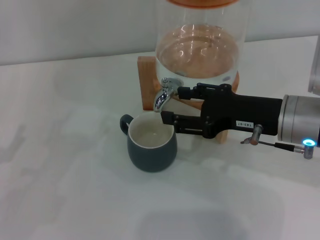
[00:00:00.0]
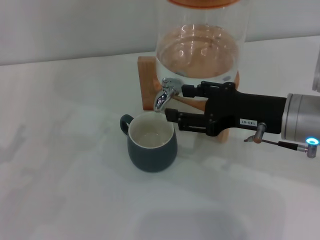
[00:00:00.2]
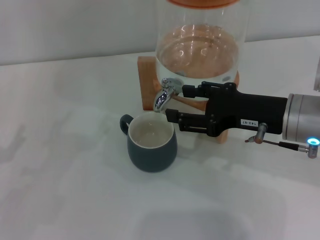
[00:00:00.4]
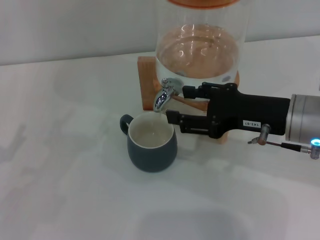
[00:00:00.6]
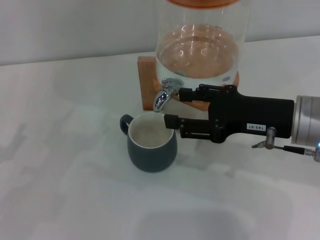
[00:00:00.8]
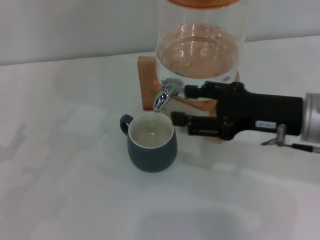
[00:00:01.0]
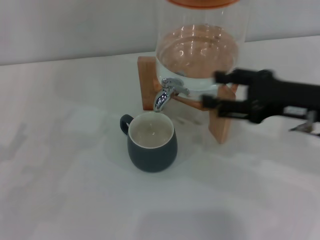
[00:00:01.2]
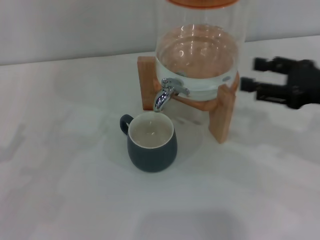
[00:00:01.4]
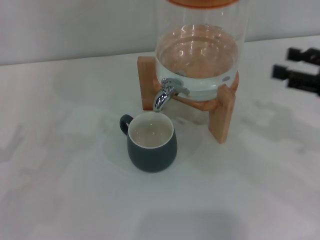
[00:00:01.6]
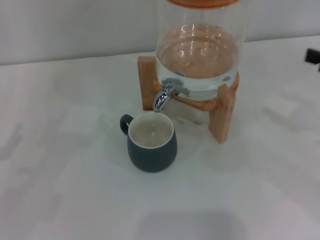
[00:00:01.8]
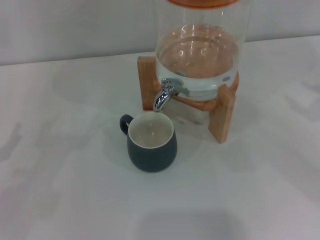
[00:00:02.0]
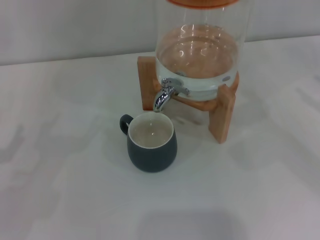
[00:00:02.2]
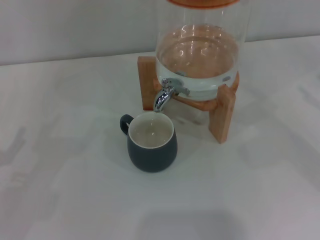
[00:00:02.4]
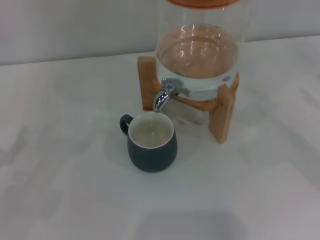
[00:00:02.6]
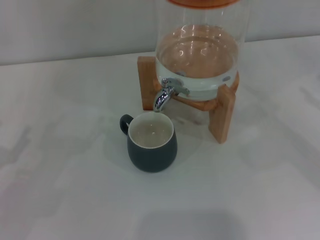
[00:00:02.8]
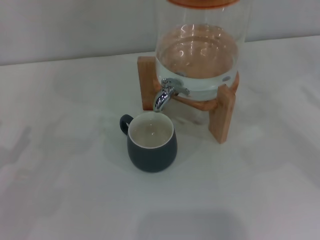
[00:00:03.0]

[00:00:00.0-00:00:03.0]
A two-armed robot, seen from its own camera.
Task of the whole recording: the left gripper pick up the black cup and place it horizontally under the faucet, the right gripper turn on the faucet to fill the cup, and then turn off the faucet.
00:00:00.0 to 00:00:01.6: The right gripper is displaced to the right by about 15 cm.
00:00:01.6 to 00:00:03.0: The right gripper goes approximately 10 cm to the right.
